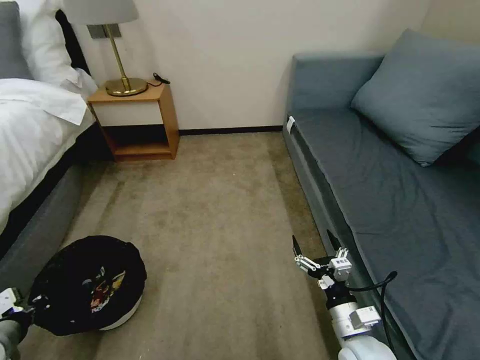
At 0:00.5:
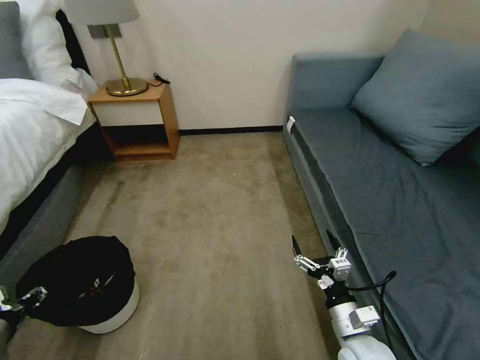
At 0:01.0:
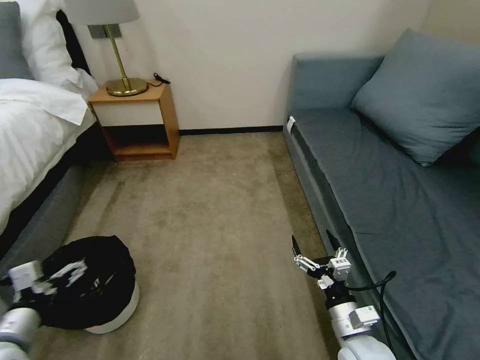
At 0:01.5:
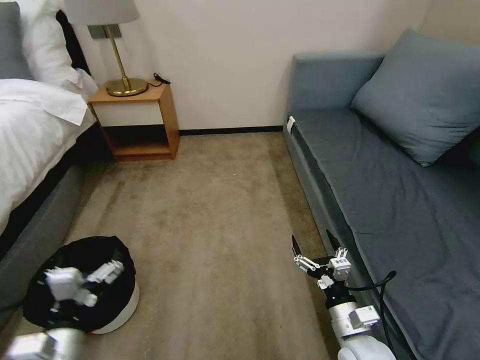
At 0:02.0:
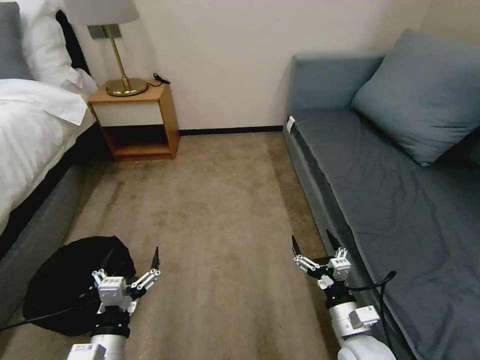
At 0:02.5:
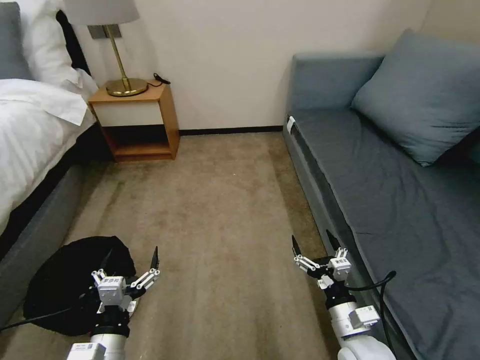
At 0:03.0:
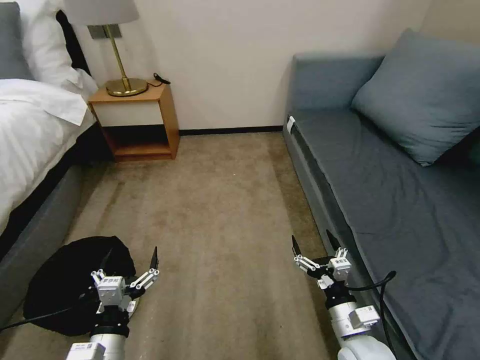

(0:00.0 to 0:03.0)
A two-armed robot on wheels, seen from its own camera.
Task of the whole recording: Pick up the trash bin, then pick up the garbage on the floor and place it into the trash bin.
0:00.0 - 0:01.5: The left gripper is displaced to the right by approximately 15 cm, and opens up.
0:01.5 - 0:03.0: The left gripper heads to the right, covering some 5 cm.

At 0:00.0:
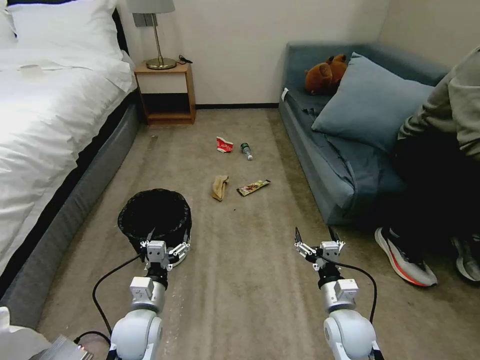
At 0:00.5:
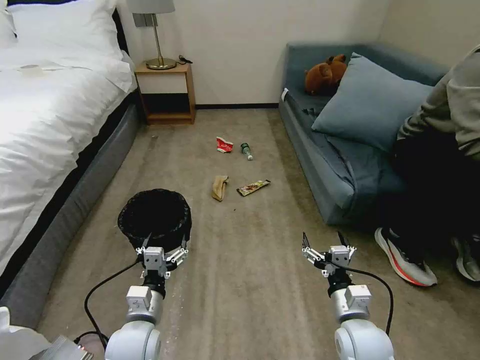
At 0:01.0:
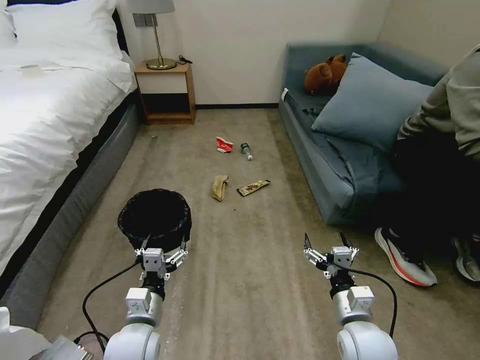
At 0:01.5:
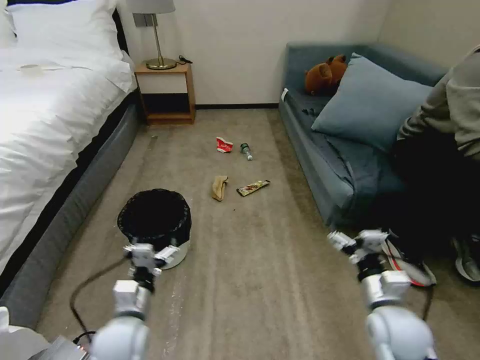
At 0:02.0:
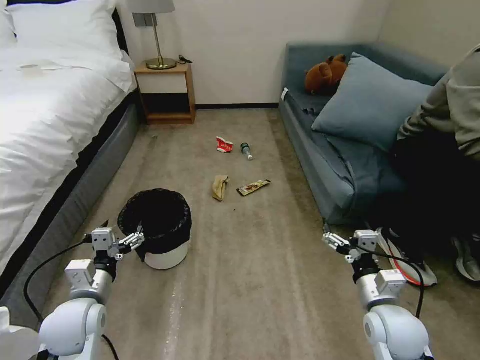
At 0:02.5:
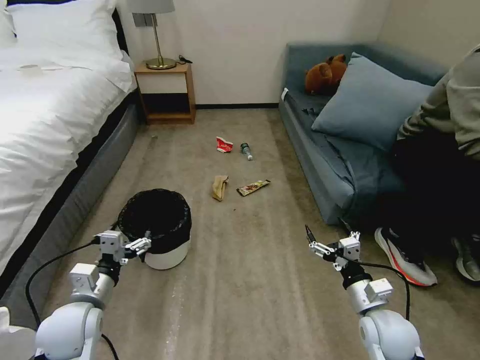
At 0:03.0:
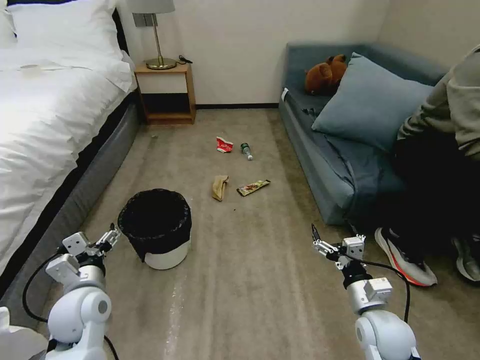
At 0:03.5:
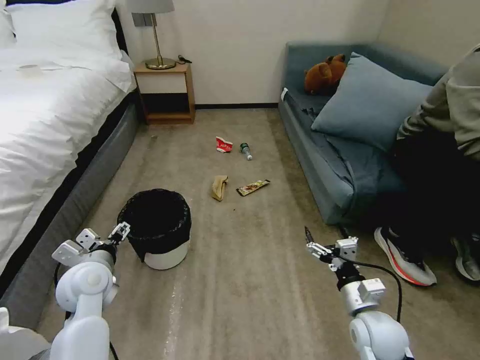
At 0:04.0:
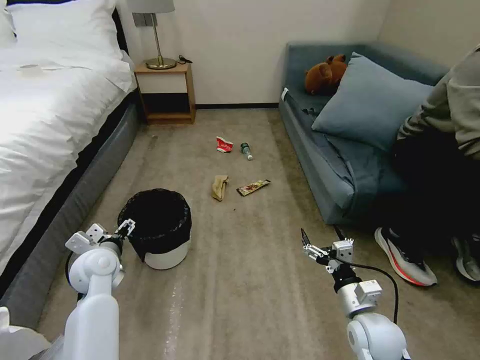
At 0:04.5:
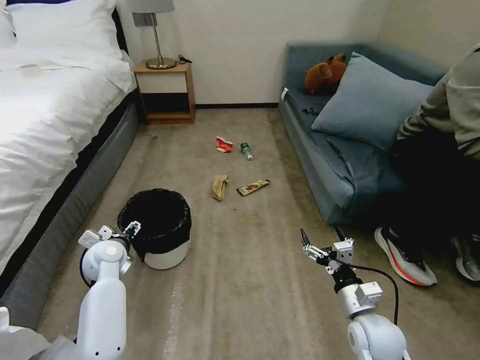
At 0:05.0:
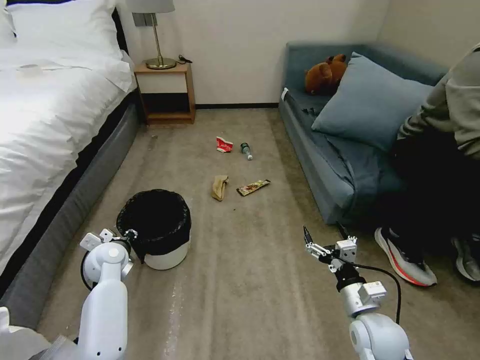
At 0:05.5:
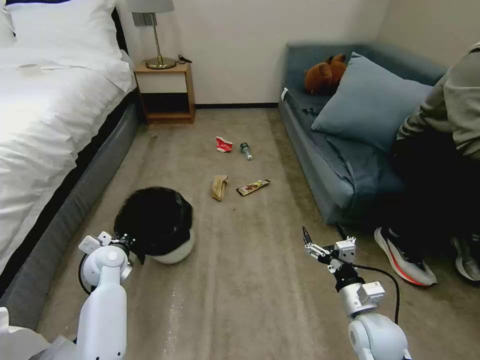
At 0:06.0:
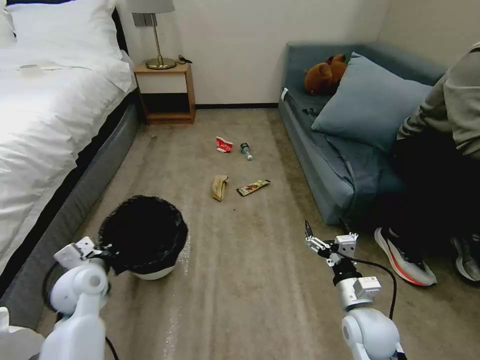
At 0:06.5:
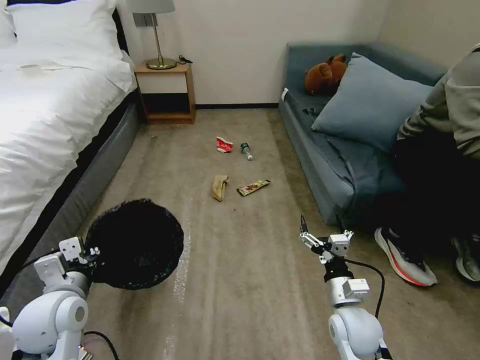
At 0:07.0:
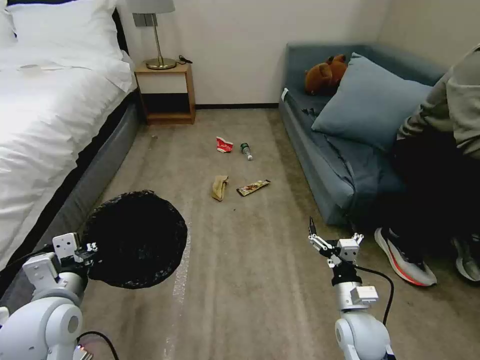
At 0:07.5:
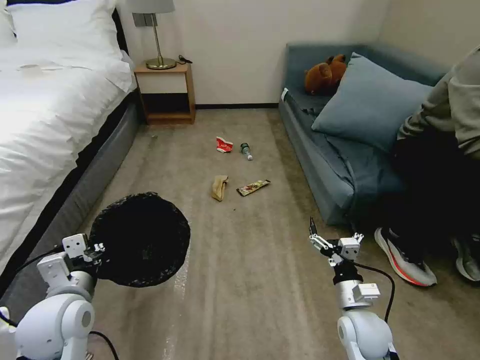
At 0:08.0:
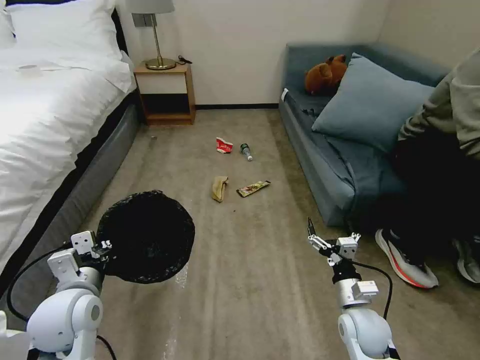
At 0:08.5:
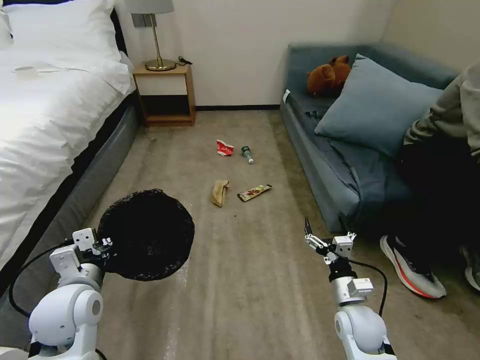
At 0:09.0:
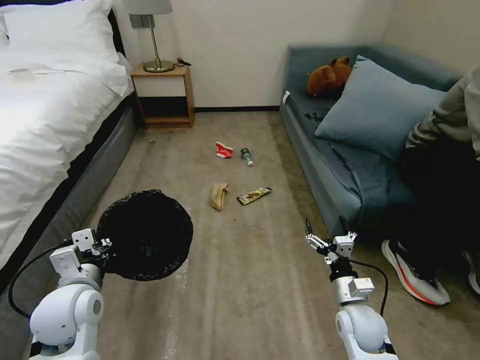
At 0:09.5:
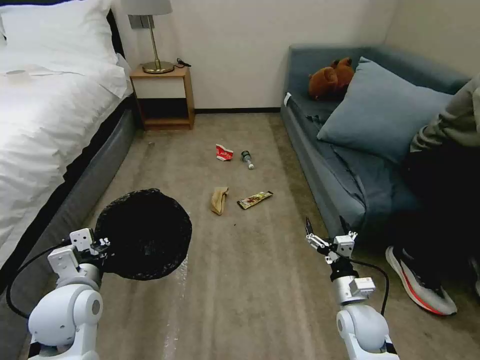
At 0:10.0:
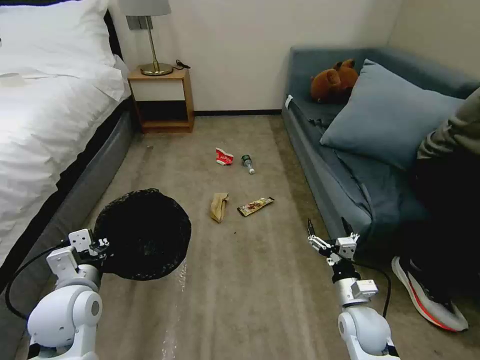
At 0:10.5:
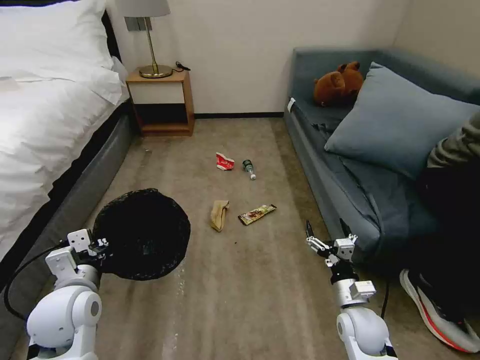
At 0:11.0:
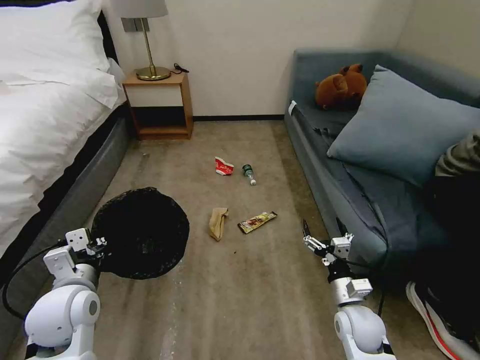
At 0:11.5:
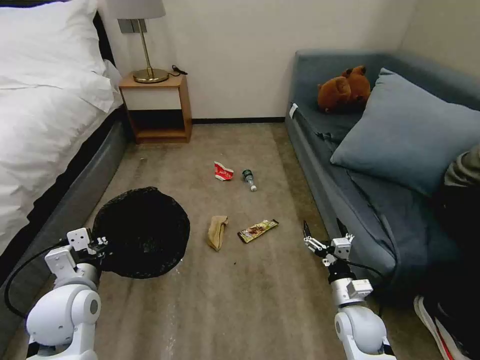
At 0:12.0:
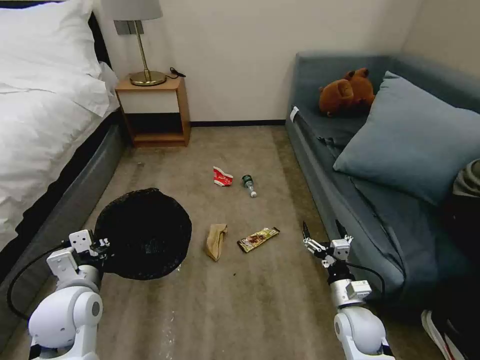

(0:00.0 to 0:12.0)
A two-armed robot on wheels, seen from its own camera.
Task of the whole recording: Pick up the trash bin, then pick up the garbage on the floor and place it into the trash bin.
0:02.0 - 0:04.0: The left gripper moves forward, some 10 cm.
0:04.0 - 0:06.0: The left gripper closes up.
0:06.0 - 0:08.0: The left gripper travels backward and upward by roughly 10 cm.

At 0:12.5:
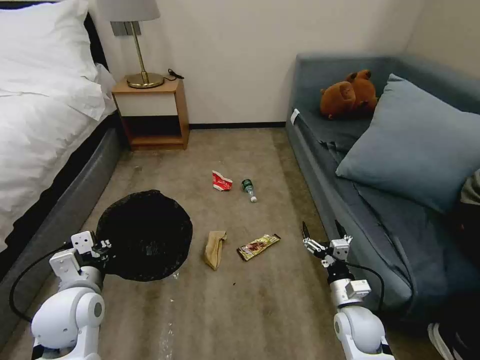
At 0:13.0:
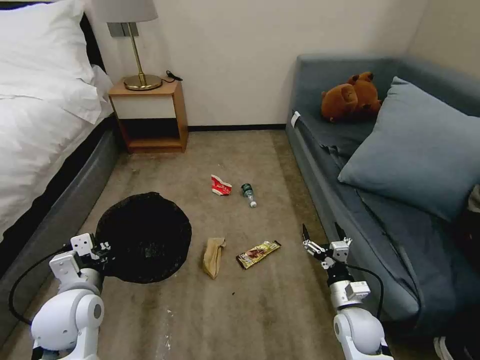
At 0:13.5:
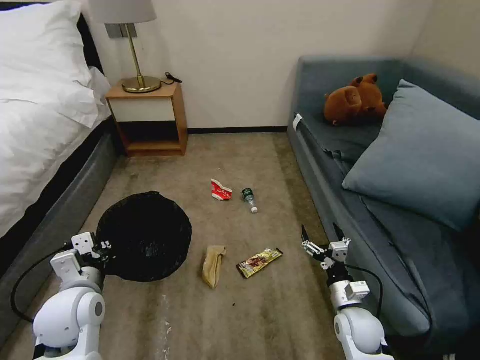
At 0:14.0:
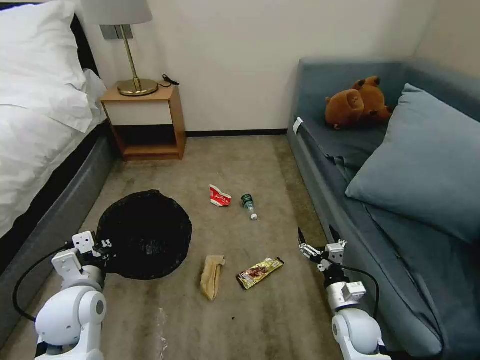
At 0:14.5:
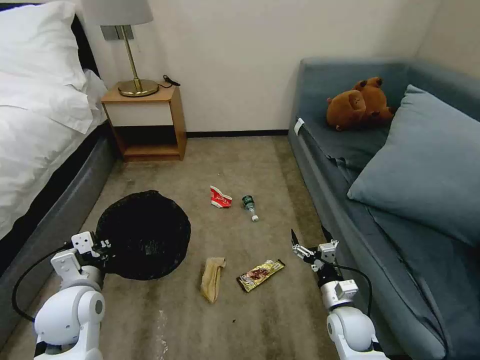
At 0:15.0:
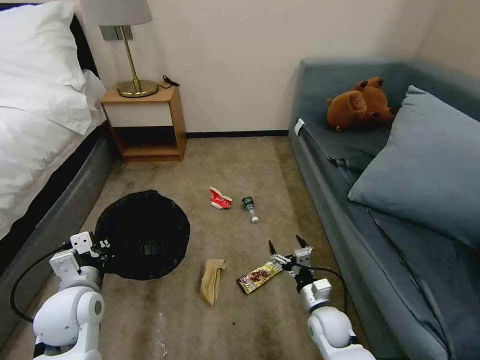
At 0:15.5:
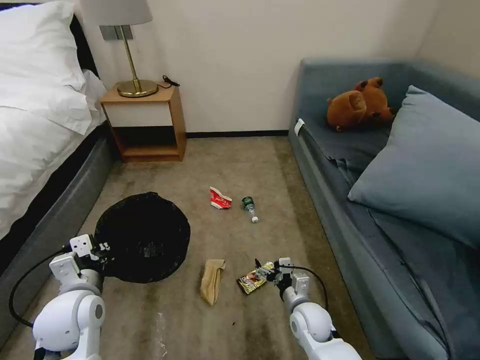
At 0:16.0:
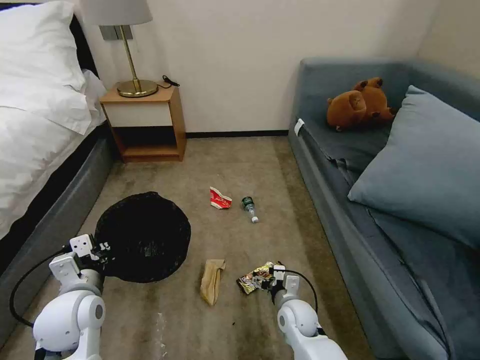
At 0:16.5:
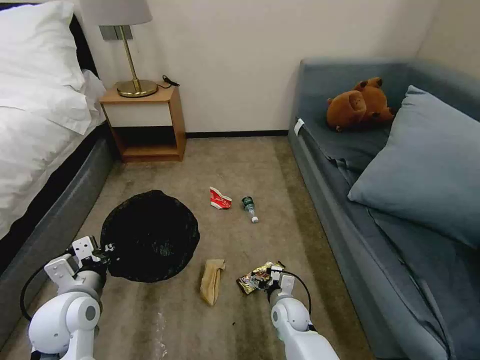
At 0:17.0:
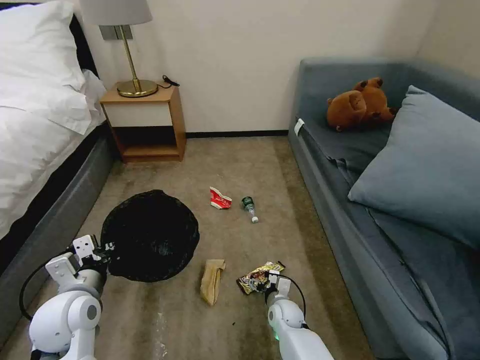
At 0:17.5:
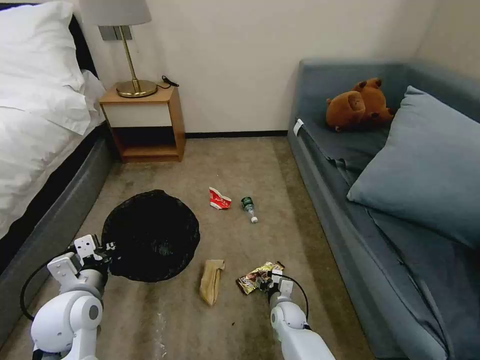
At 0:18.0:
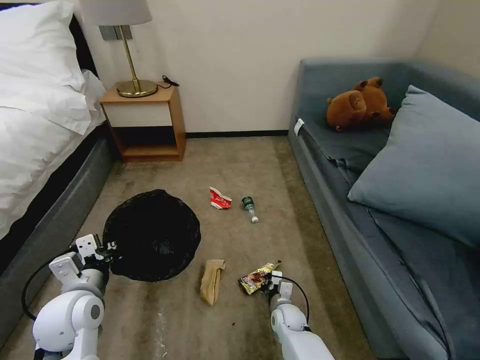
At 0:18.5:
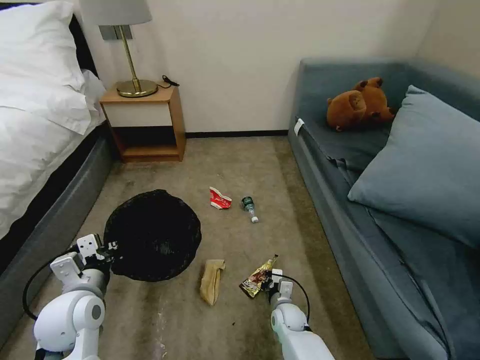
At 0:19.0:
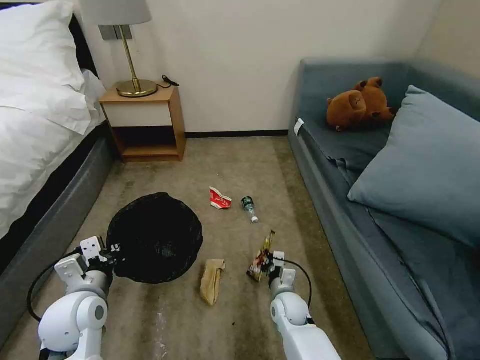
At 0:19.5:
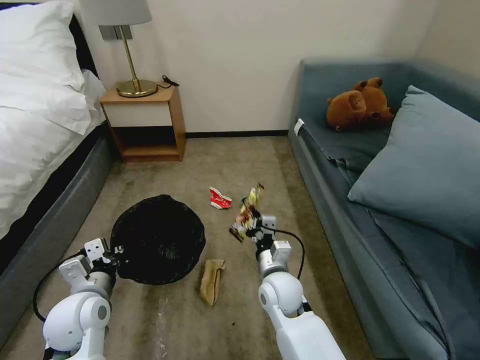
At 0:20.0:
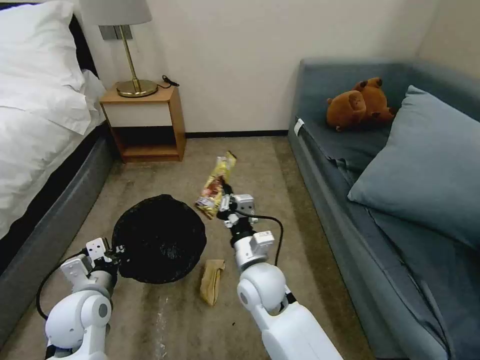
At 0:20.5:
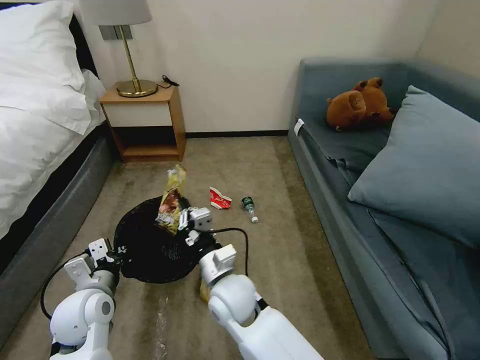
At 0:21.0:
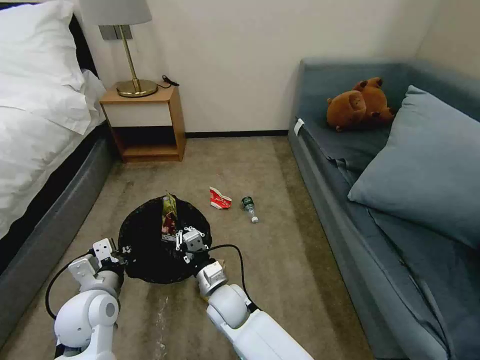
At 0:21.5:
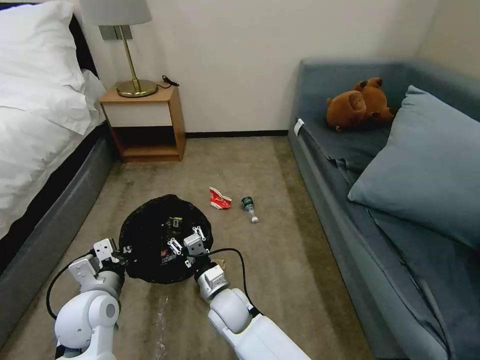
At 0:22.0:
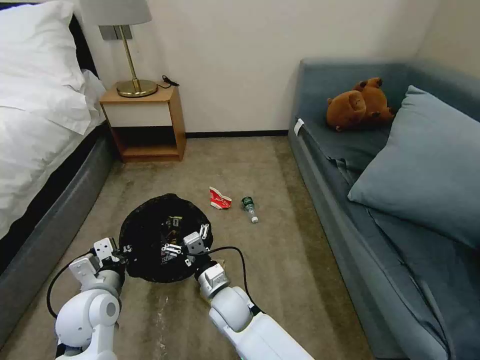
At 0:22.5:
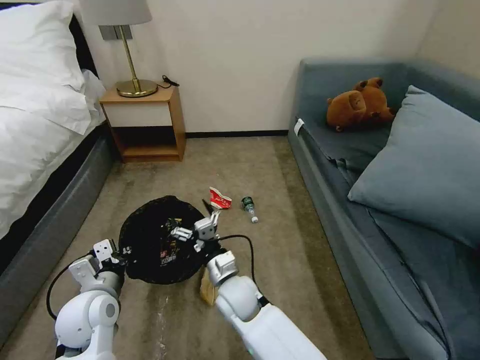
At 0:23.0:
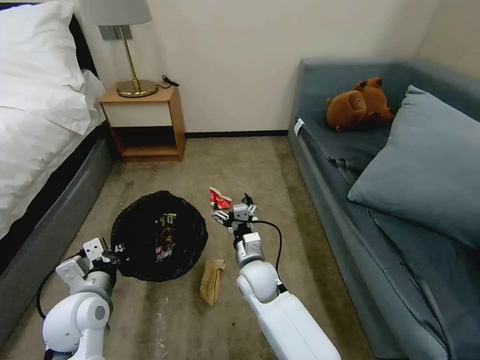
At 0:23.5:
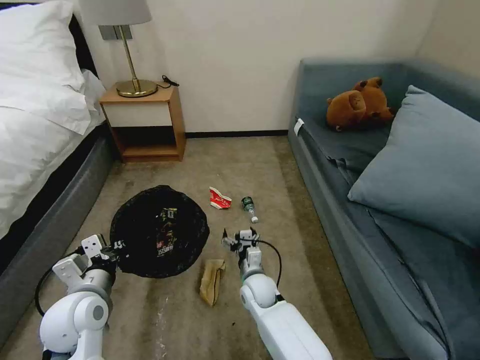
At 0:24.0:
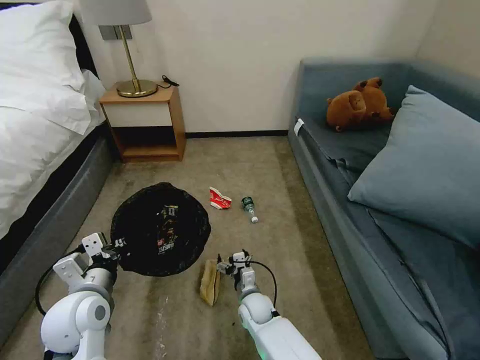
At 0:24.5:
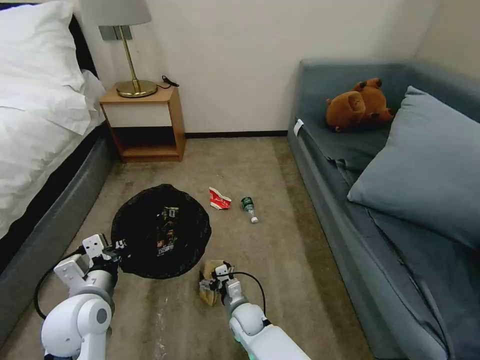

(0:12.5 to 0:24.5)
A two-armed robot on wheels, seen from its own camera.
Task of the whole recording: Pick up the trash bin, then pick up the garbage on the floor and place it into the trash bin.
0:14.5 - 0:16.5: The right gripper travels to the left and downward by about 15 cm.
0:16.5 - 0:18.5: The right gripper travels downward by roughly 5 cm, and closes its fingers.
0:18.5 - 0:20.5: The right gripper goes some 30 cm upward and to the left.
0:20.5 - 0:22.5: The right gripper shifts by roughly 5 cm, and opens.
0:22.5 - 0:24.5: The right gripper is displaced downward by approximately 15 cm.
